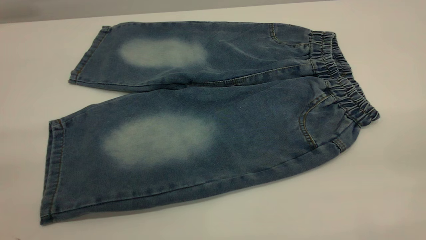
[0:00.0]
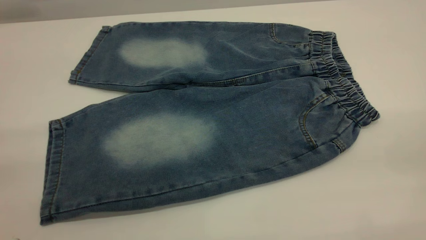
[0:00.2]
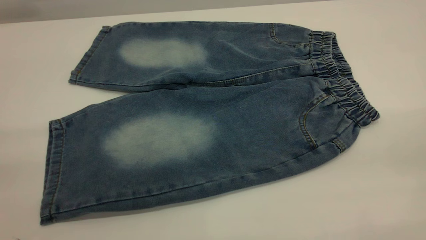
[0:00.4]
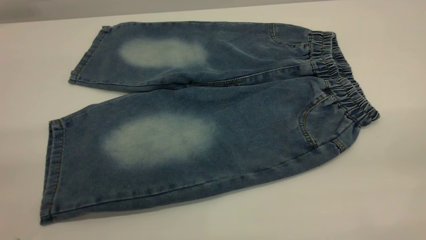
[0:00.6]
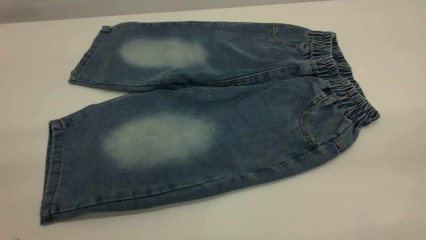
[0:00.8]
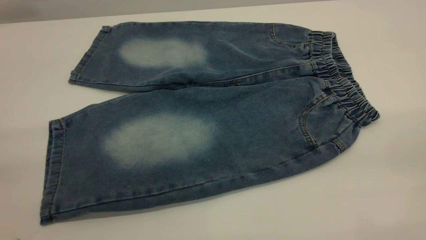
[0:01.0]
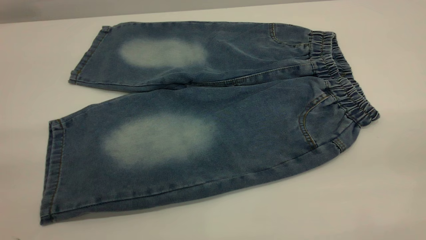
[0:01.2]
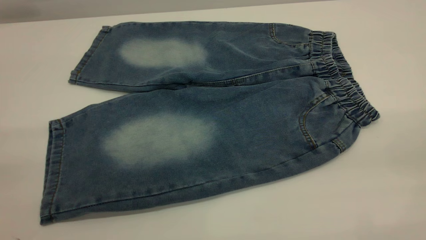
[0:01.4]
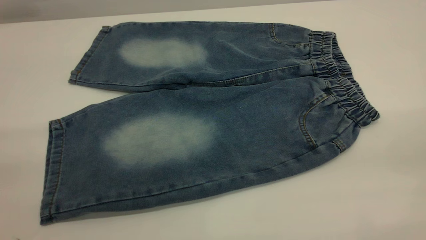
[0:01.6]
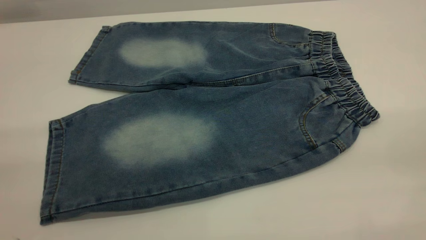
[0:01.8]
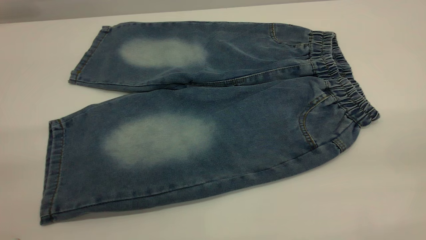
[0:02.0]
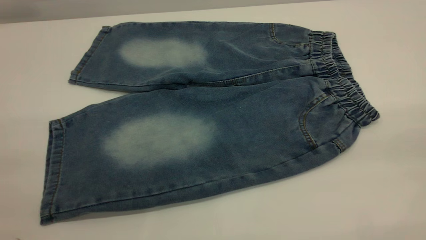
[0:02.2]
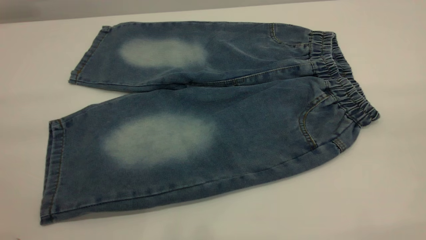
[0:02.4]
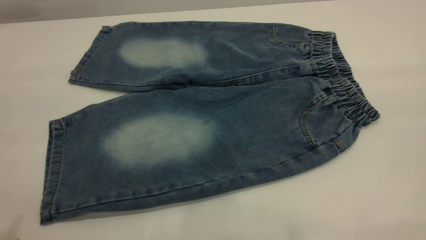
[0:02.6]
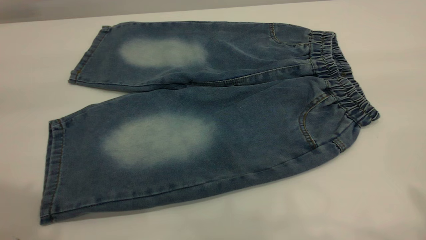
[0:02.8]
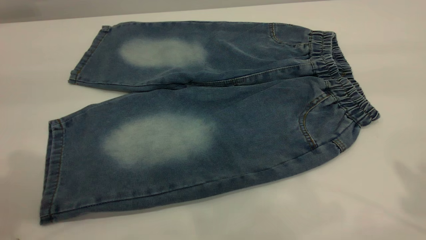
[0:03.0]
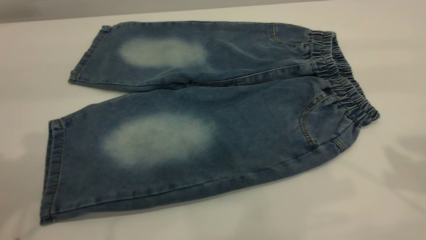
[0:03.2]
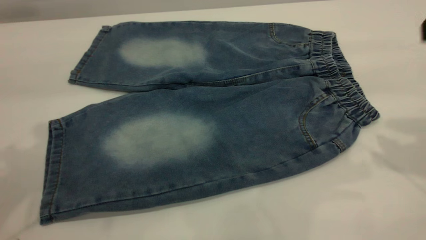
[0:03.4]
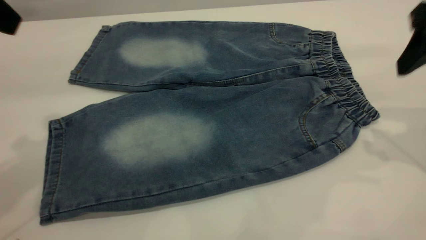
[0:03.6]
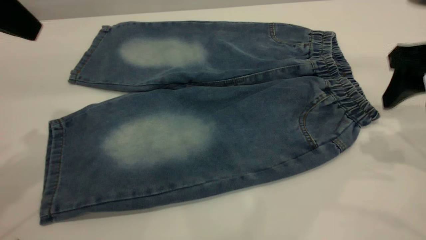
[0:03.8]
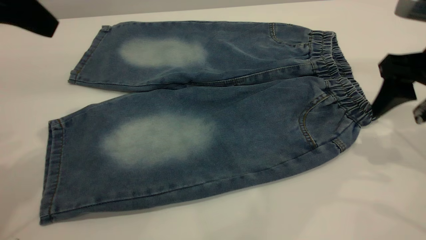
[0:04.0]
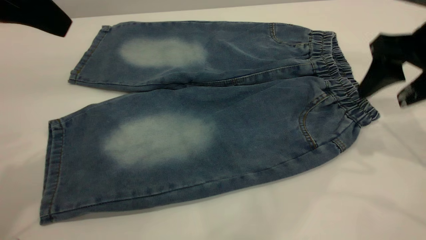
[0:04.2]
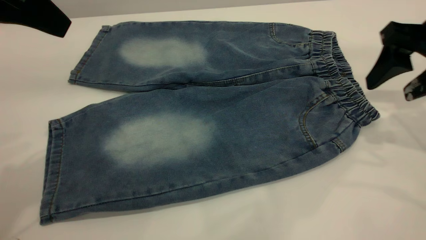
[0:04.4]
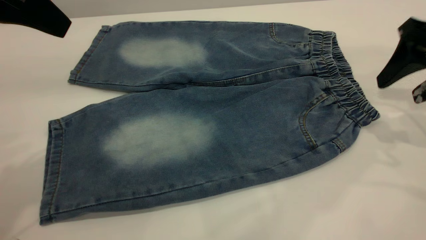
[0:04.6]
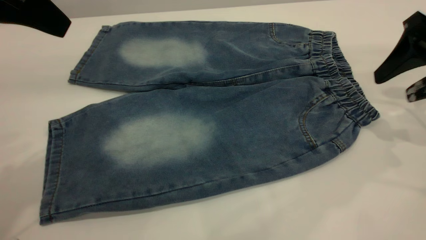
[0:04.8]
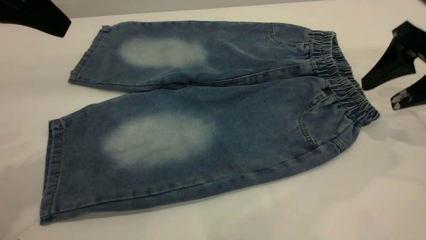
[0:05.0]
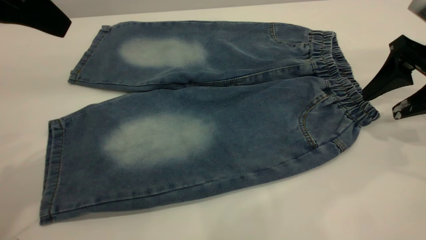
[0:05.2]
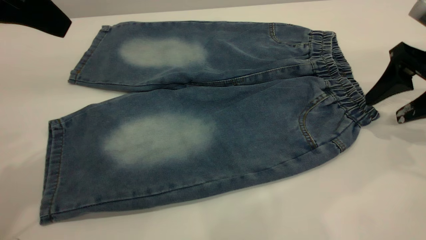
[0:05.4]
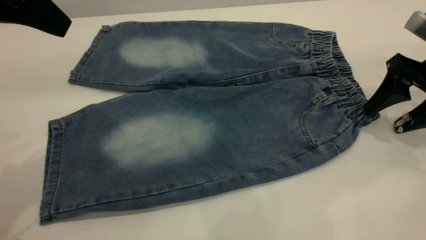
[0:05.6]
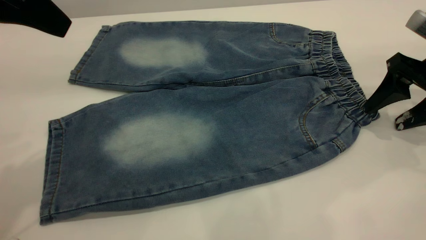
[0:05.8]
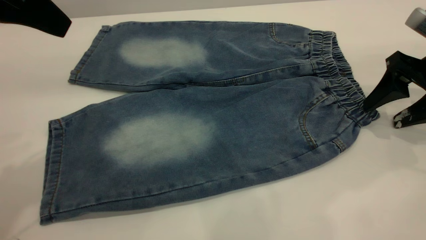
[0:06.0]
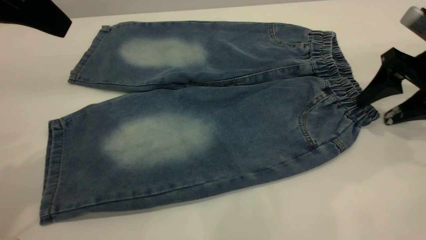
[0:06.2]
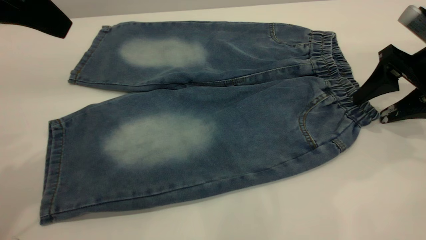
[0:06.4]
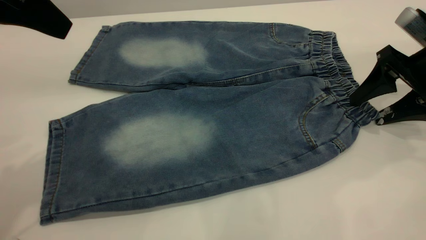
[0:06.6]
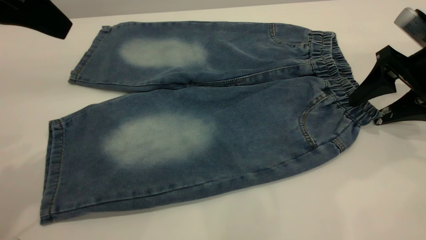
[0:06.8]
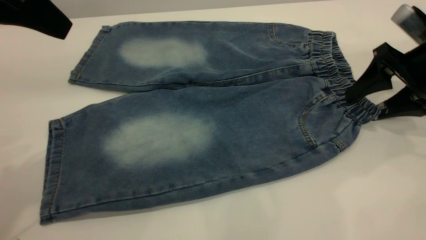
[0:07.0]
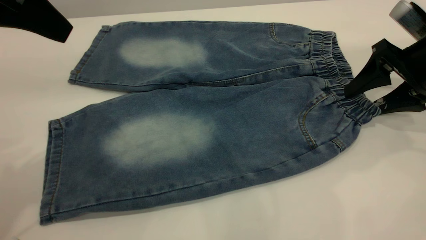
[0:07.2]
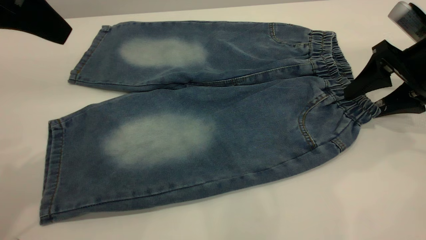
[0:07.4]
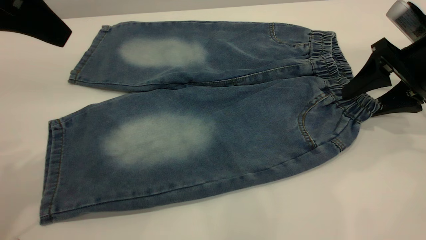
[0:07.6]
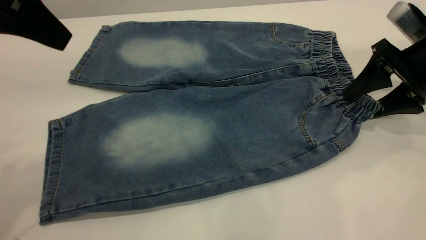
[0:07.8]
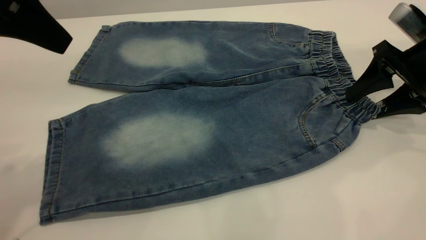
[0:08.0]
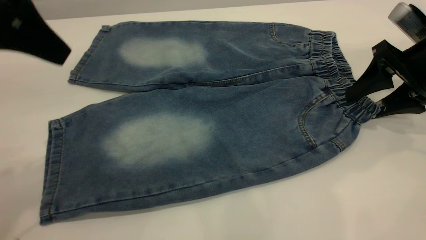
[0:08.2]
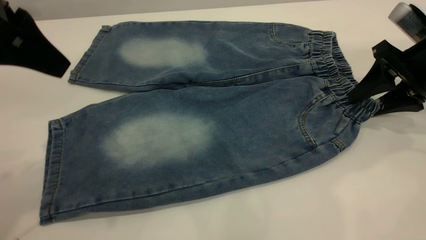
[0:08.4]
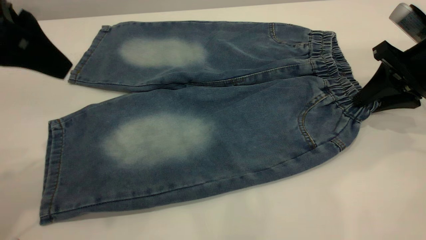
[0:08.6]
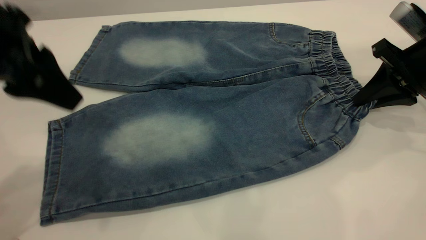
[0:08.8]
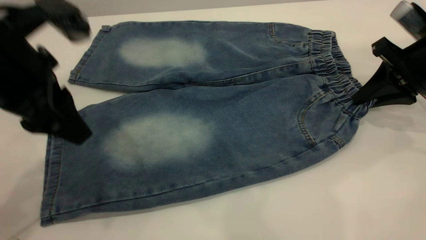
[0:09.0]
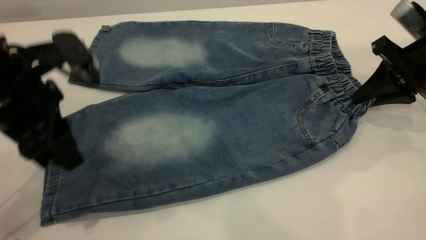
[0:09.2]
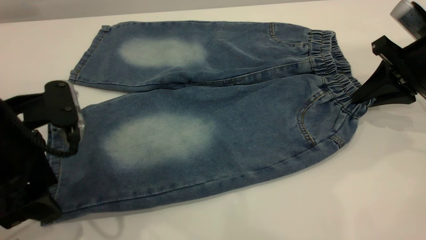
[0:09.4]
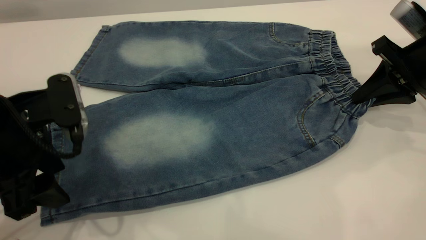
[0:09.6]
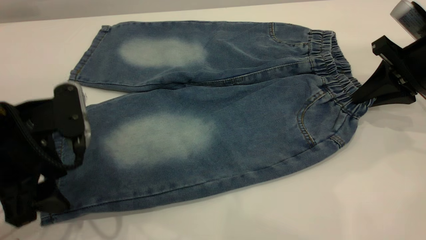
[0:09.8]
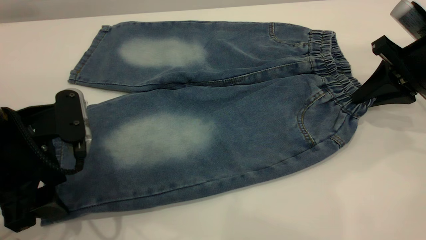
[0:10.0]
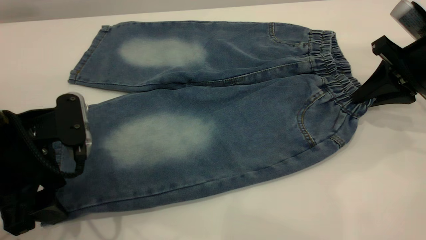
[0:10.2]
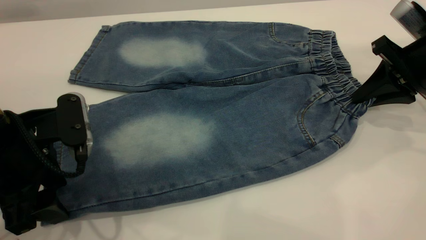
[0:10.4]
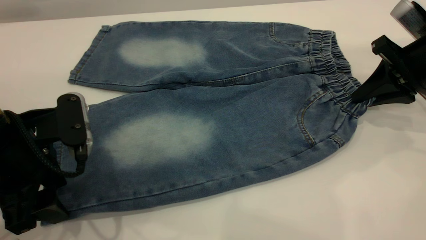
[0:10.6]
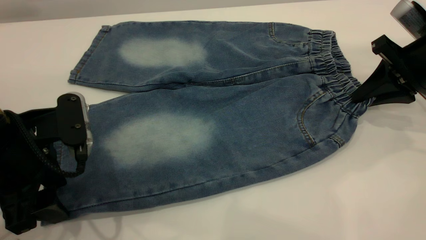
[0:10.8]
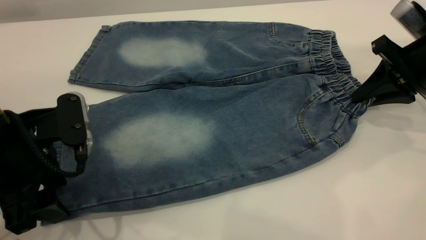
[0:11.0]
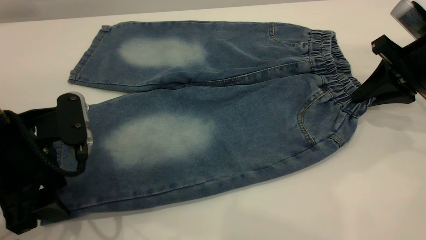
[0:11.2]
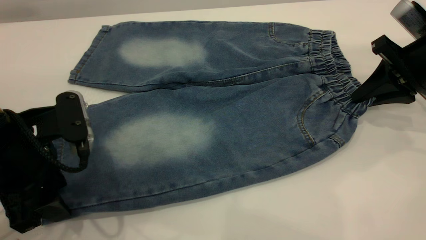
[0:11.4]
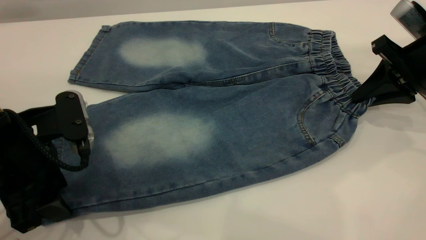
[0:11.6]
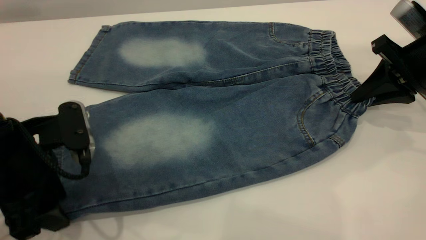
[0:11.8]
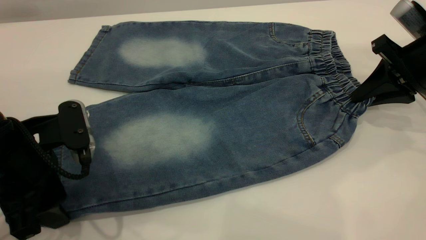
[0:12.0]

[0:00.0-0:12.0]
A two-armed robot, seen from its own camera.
0:00.0 to 0:01.6: Both grippers stay about where they are.
0:01.6 to 0:03.0: The left gripper shifts roughly 20 cm forward.
0:03.0 to 0:04.4: The right gripper is displaced downward and forward by about 20 cm. The left gripper is displaced downward and forward by some 10 cm.
0:04.4 to 0:06.0: The right gripper heads downward, covering approximately 5 cm.
0:06.0 to 0:07.6: The grippers make only small movements.
0:07.6 to 0:09.0: The left gripper heads downward, covering roughly 10 cm; the right gripper closes its fingers.
0:09.0 to 0:10.4: The left gripper heads downward, covering some 5 cm, and opens up.
0:10.4 to 0:12.0: The two grippers keep their place.

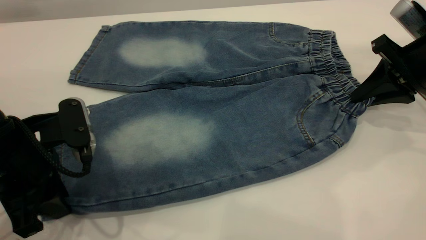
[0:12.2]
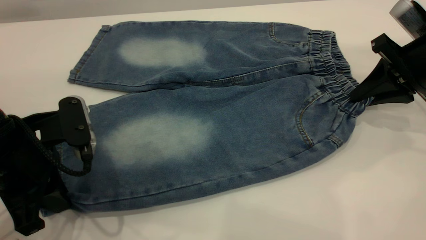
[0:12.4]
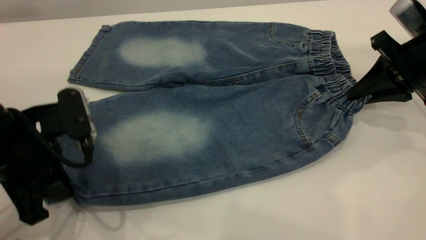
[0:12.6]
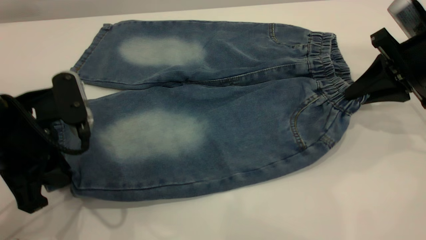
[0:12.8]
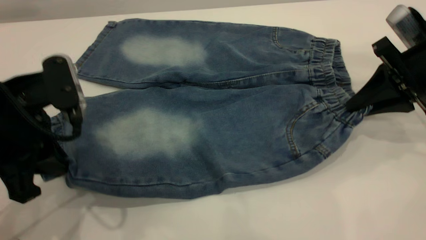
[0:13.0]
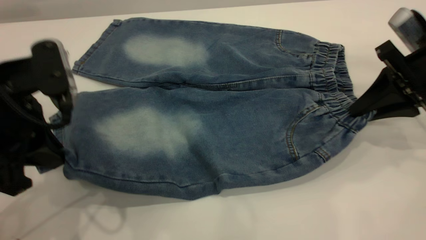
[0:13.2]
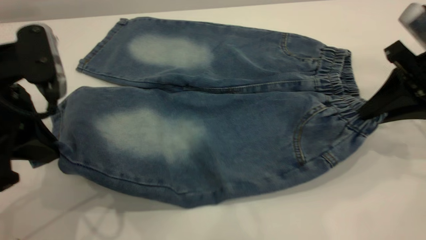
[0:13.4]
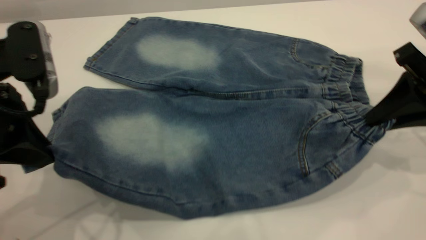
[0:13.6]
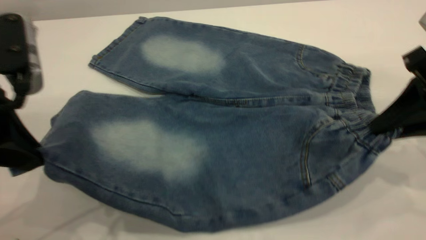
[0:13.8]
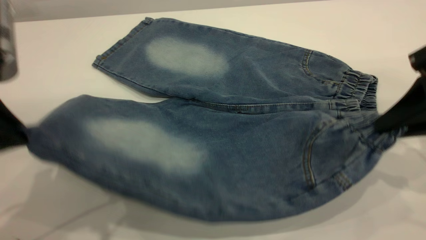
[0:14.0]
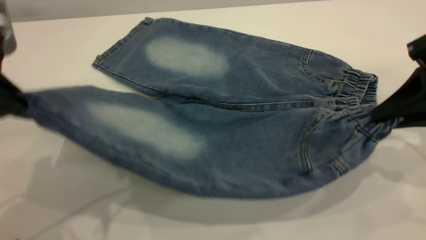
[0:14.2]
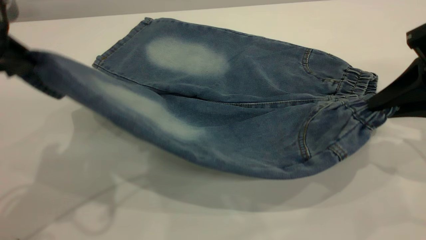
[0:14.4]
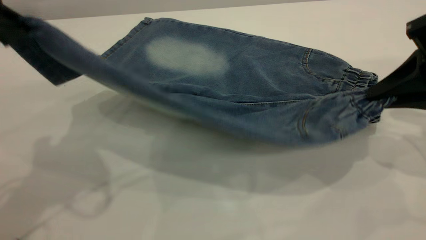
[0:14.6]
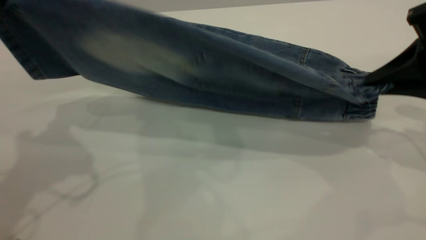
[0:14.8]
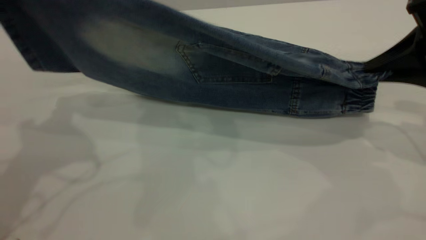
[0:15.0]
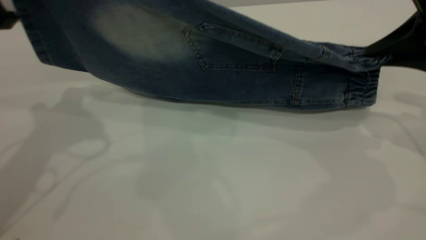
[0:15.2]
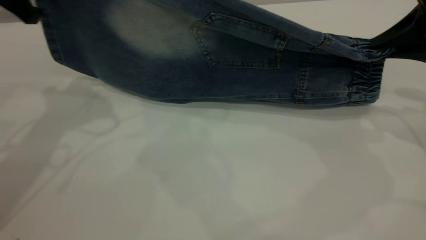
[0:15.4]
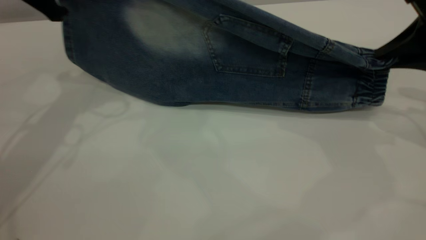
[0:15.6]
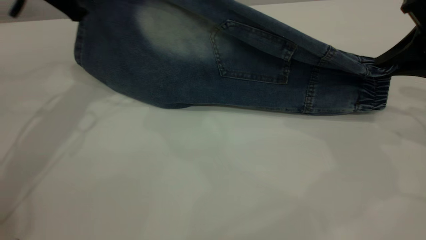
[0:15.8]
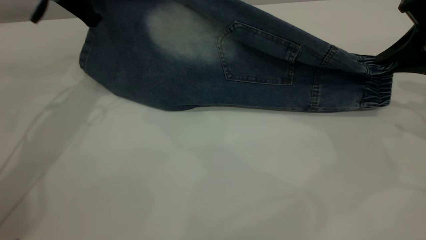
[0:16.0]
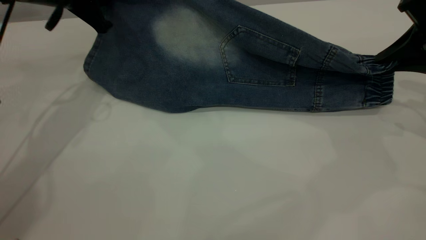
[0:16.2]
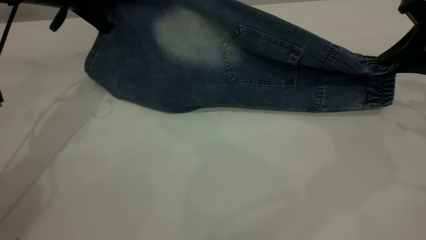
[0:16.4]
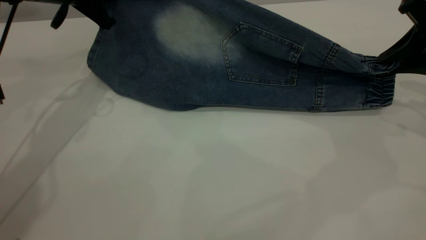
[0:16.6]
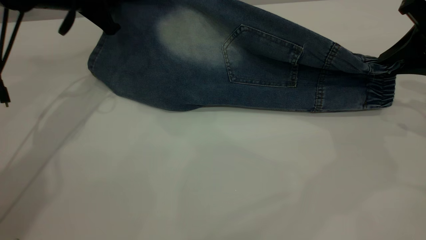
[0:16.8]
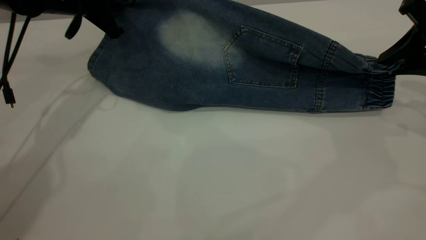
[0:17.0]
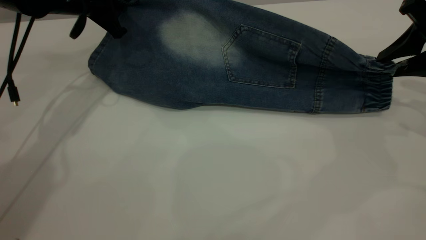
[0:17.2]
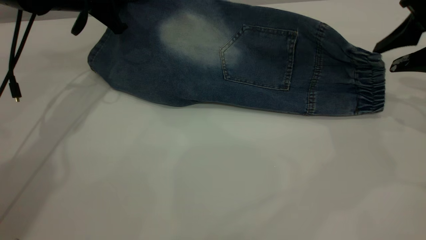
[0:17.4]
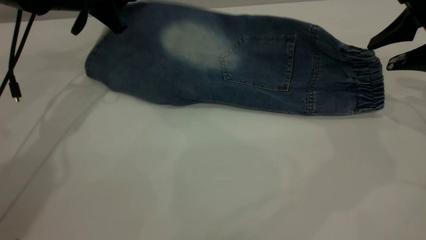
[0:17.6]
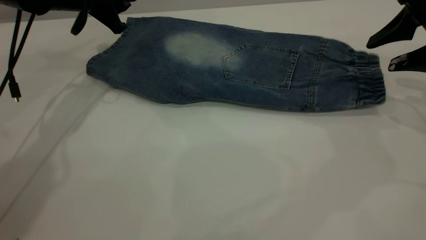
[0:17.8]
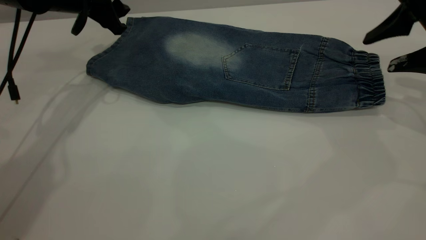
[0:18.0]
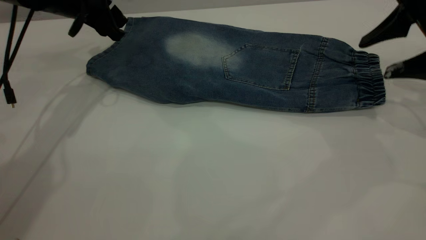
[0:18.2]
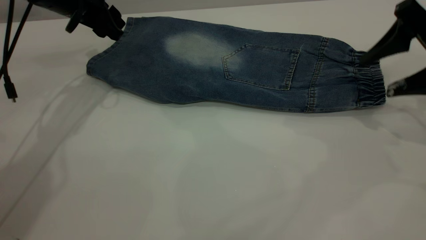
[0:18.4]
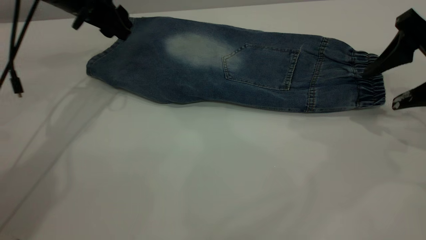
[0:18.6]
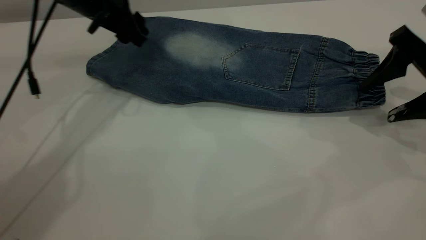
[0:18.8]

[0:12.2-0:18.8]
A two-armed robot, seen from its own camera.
Step, 0:12.2 to 0:18.4: Fold the bottom of the pants upward.
0:12.2 to 0:13.8: The right gripper travels backward by roughly 10 cm. The left gripper moves upward, about 10 cm.
0:13.8 to 0:15.4: The right gripper moves forward, about 5 cm, while the left gripper moves forward, roughly 15 cm.
0:15.4 to 0:17.2: The right gripper opens; the left gripper moves forward and downward, roughly 15 cm.
0:17.2 to 0:18.8: The left gripper ends up roughly 5 cm from where it was, and opens up, while the right gripper opens up.
